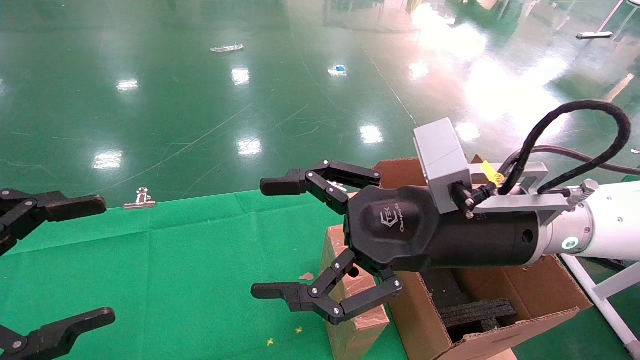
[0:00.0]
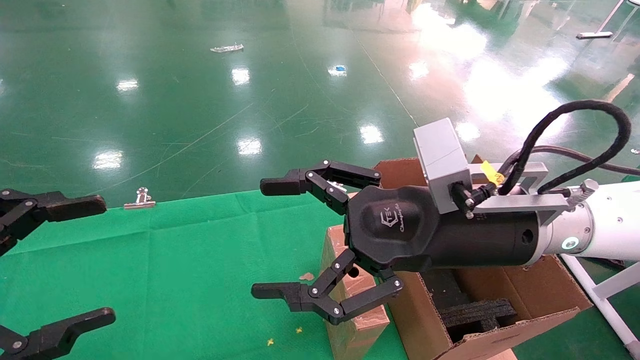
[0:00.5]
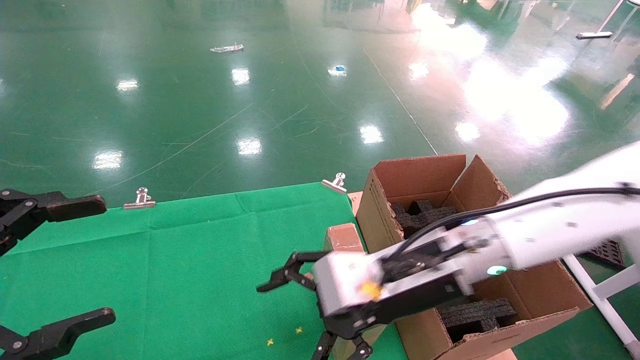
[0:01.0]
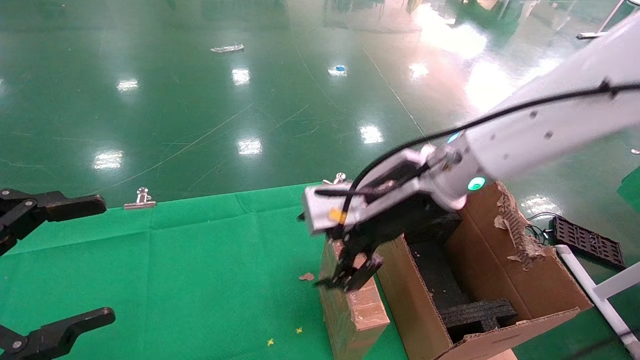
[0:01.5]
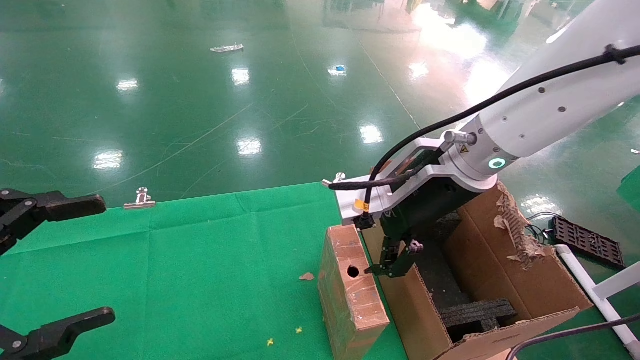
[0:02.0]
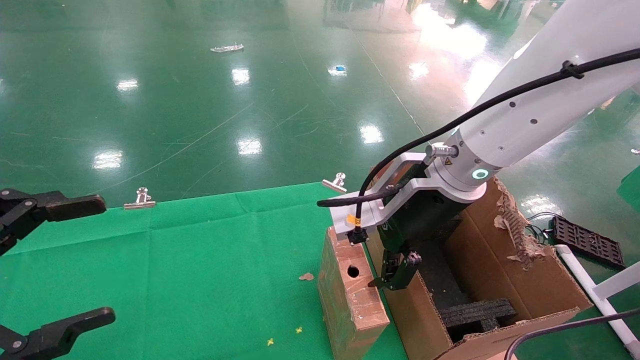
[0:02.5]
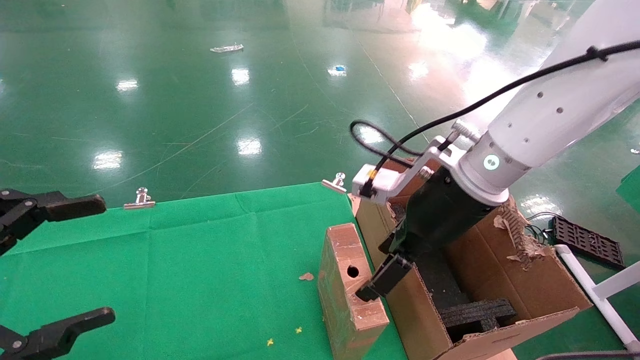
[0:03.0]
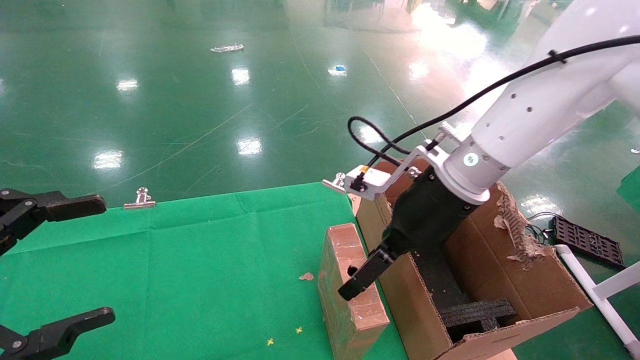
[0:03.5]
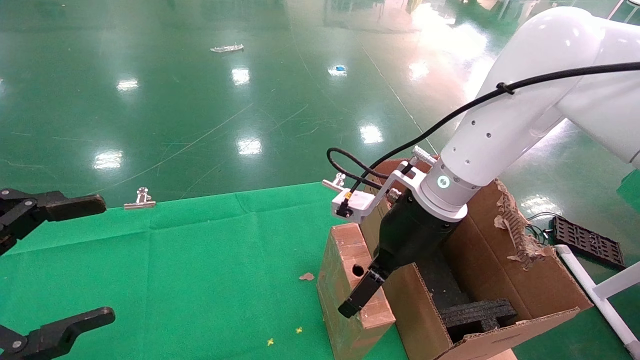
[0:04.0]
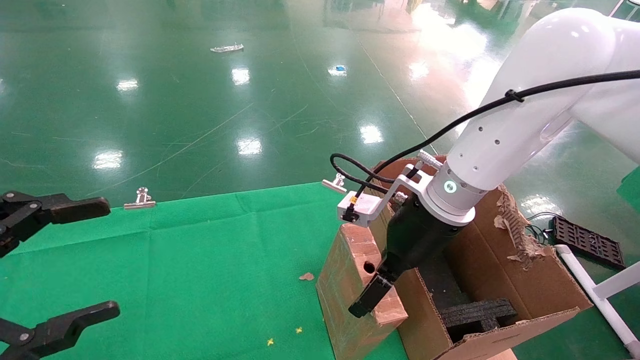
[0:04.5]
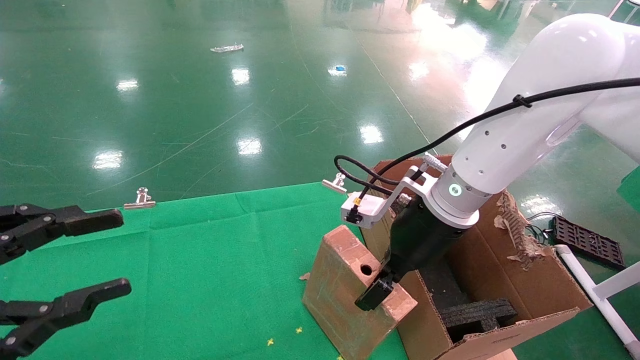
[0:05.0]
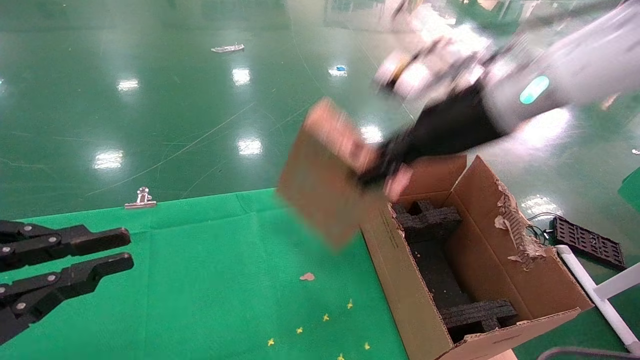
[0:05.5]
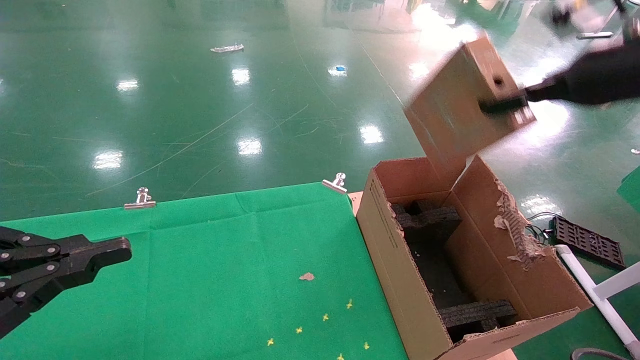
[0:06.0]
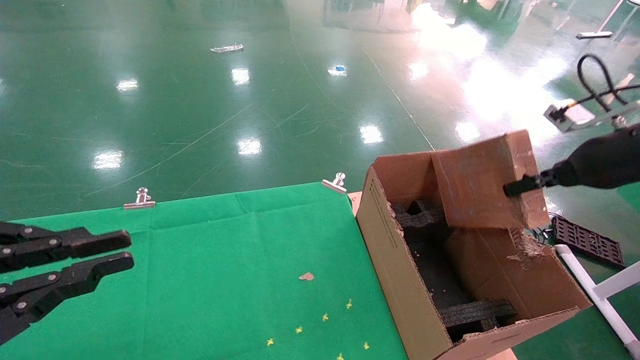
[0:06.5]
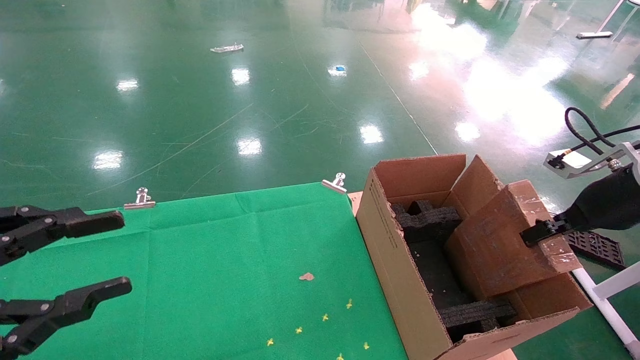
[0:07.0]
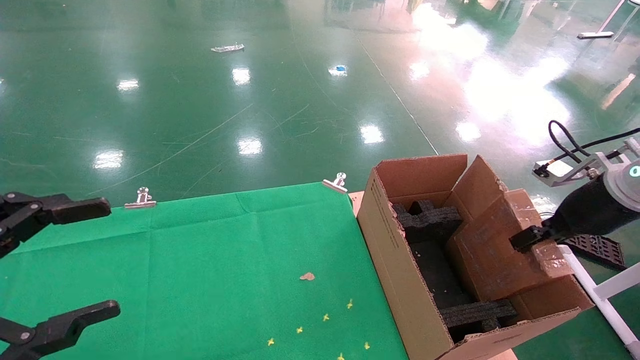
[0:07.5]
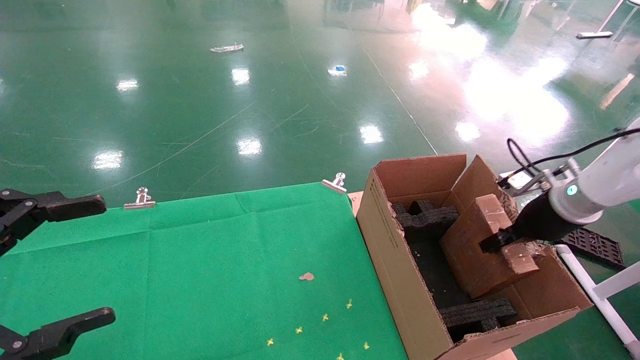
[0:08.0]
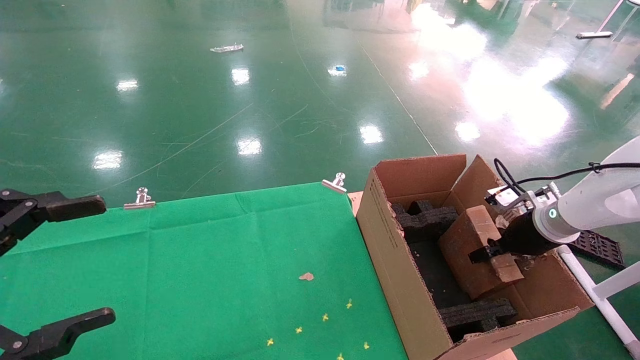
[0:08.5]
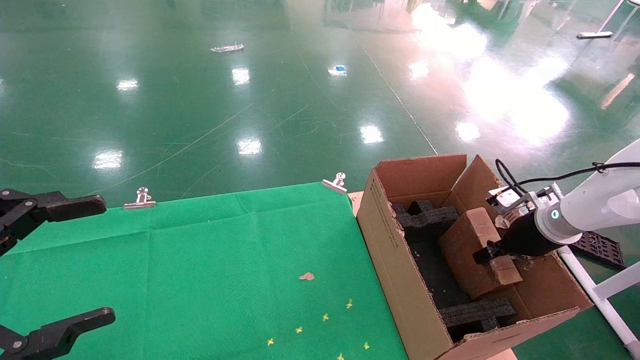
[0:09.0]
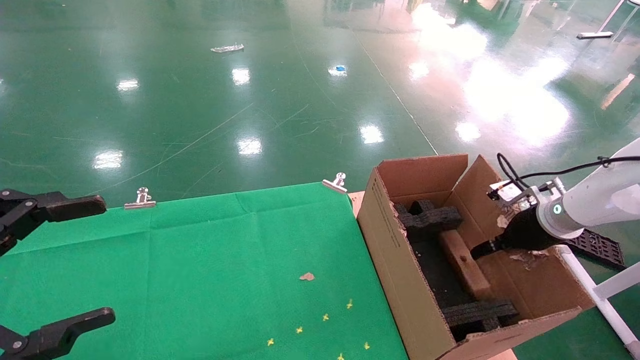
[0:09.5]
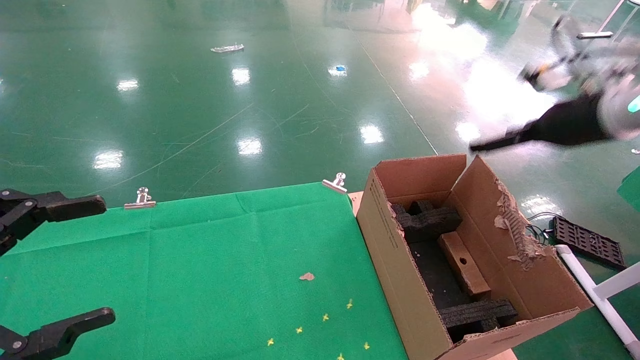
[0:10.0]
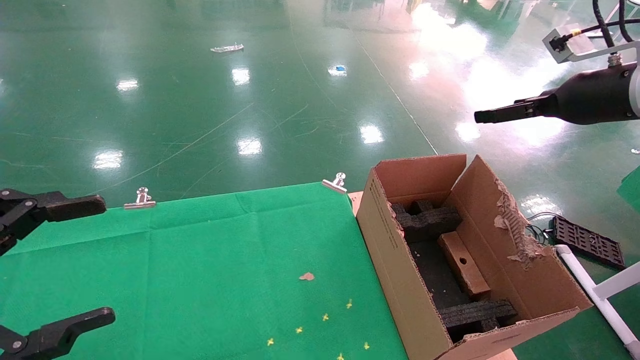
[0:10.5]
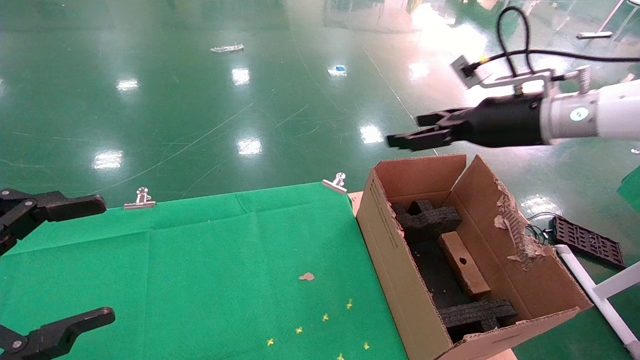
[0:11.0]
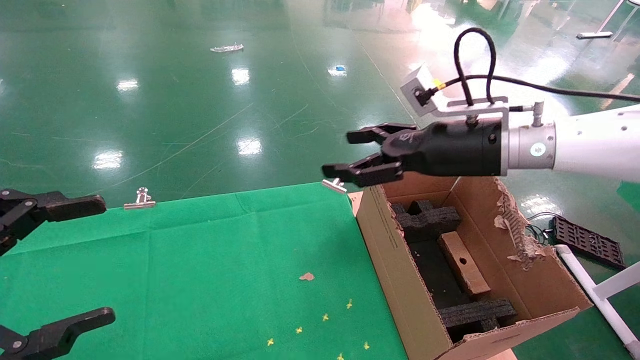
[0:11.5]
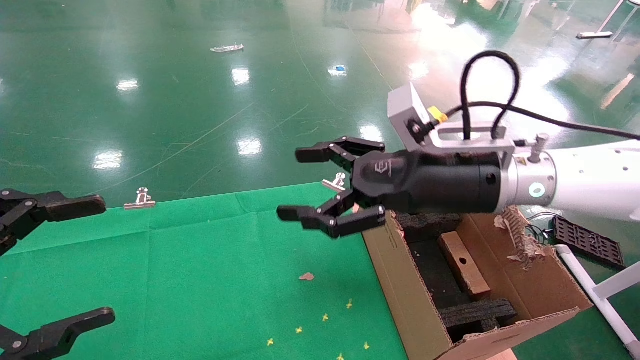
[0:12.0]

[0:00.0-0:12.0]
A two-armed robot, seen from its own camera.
Task of the whole recording: using a robotic arm to pick up a cardboard box and palace it the carton.
Step, 0:01.0 to 0:05.0: Pick up the mouse and the power cord paper box.
Step, 0:05.5 to 0:09.5: Place the mouse and the power cord paper box into the container.
0:00.0 to 0:02.0: The right gripper is displaced forward by some 5 cm.
0:02.0 to 0:04.0: The right gripper is displaced downward by roughly 5 cm.
0:04.0 to 0:06.0: The right gripper goes about 25 cm to the right and upward, and closes. Meanwhile the left gripper closes up.
0:06.0 to 0:08.0: The right gripper heads downward, covering about 20 cm; the left gripper opens.
0:08.0 to 0:10.0: The right gripper goes some 15 cm upward, and opens up.
0:10.0 to 0:12.0: The right gripper is displaced to the left by approximately 25 cm.

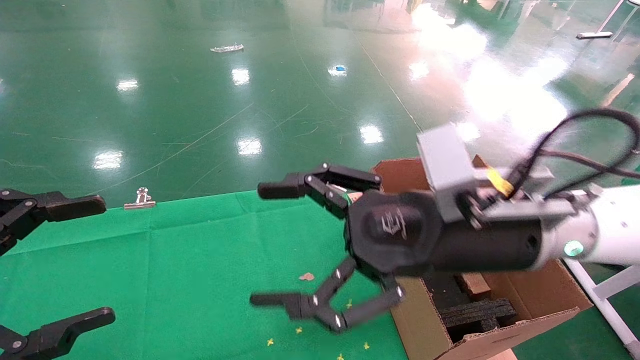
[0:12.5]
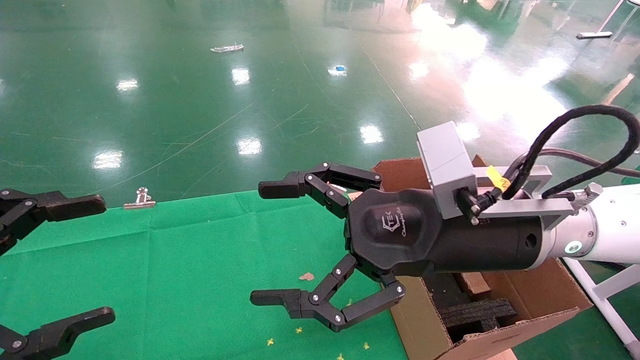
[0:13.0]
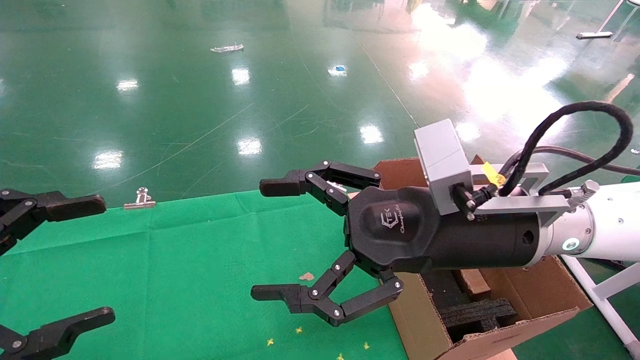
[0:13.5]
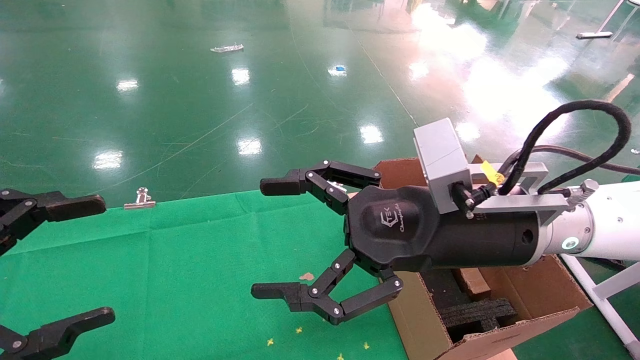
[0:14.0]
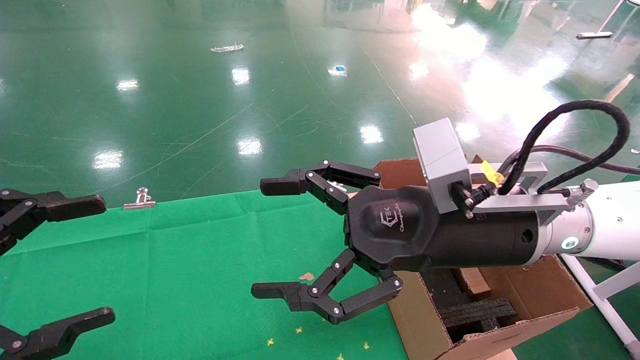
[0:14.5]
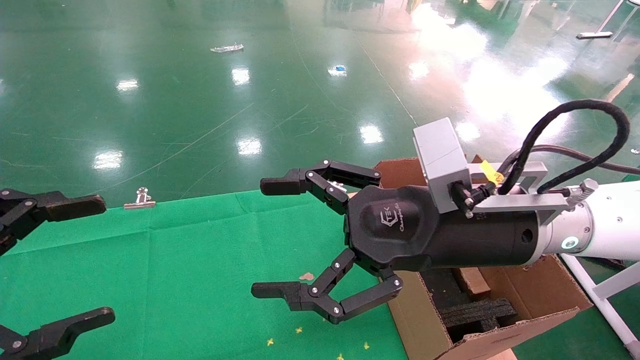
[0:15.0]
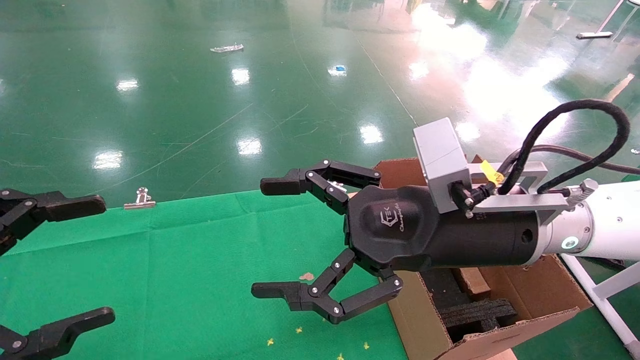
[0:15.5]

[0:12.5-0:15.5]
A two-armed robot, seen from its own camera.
Task of the whole recording: using a robotic arm to pick up a cardboard box and palace it the carton.
0:12.5 to 0:15.5: Neither gripper changes place.
